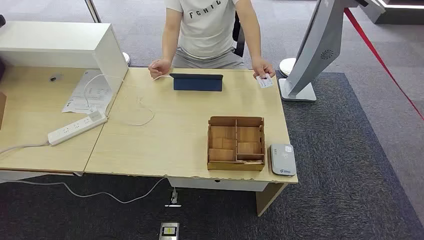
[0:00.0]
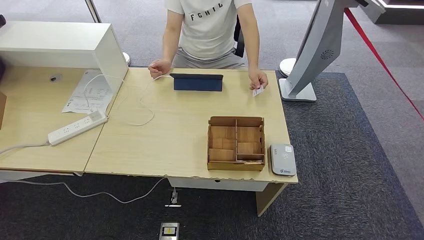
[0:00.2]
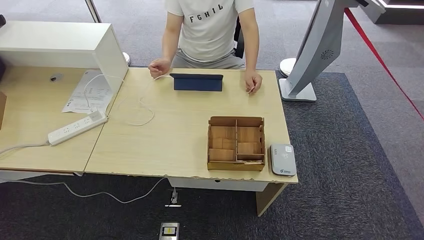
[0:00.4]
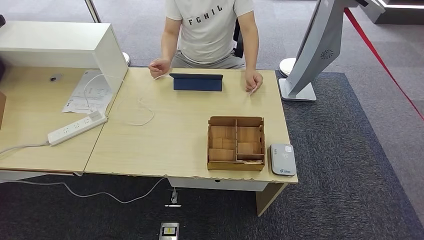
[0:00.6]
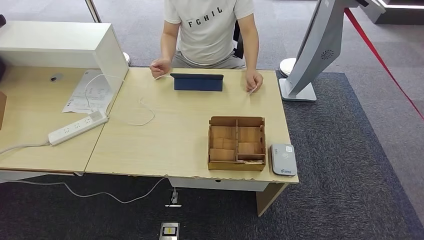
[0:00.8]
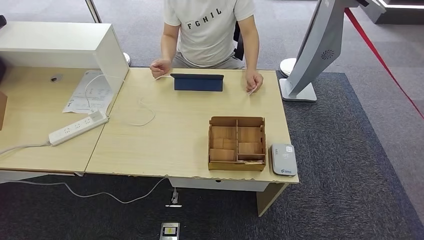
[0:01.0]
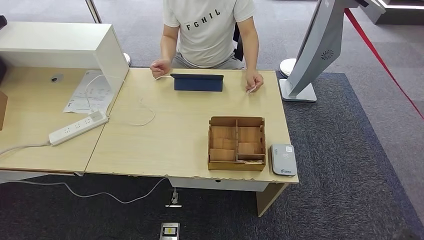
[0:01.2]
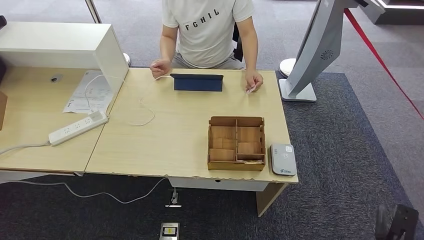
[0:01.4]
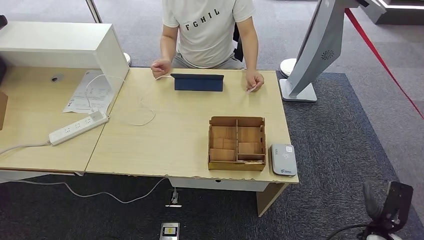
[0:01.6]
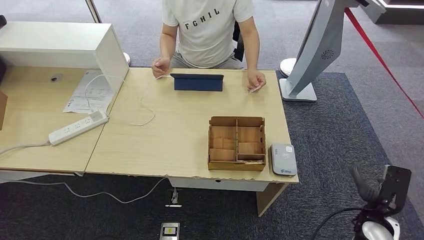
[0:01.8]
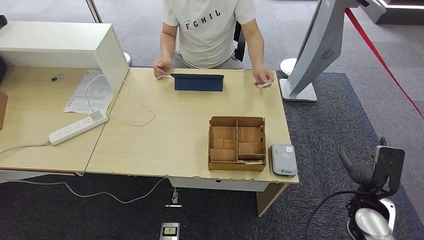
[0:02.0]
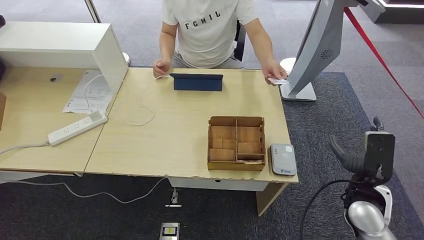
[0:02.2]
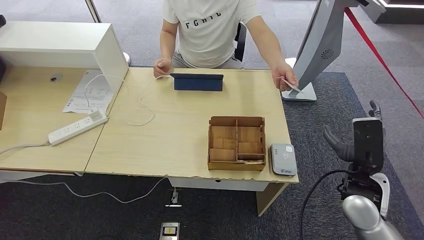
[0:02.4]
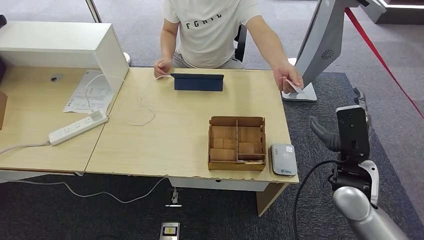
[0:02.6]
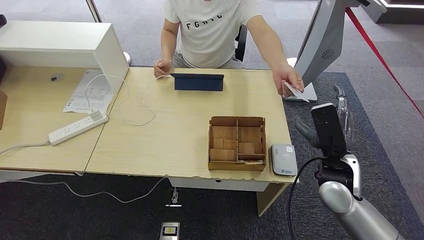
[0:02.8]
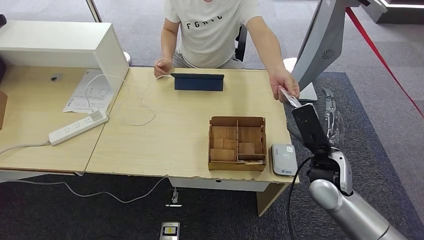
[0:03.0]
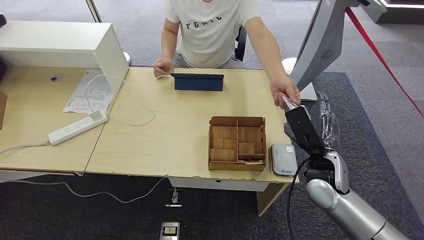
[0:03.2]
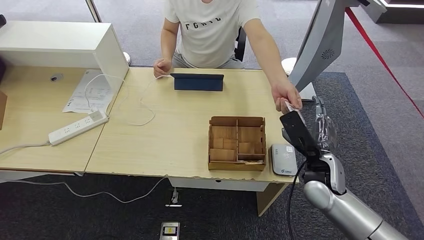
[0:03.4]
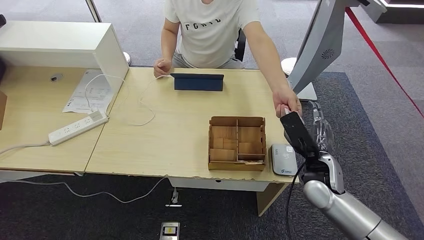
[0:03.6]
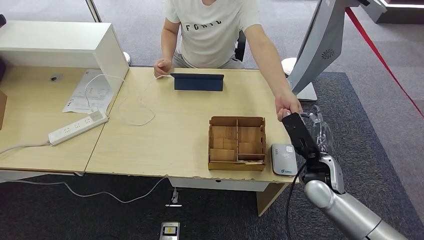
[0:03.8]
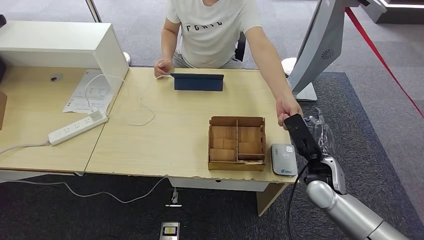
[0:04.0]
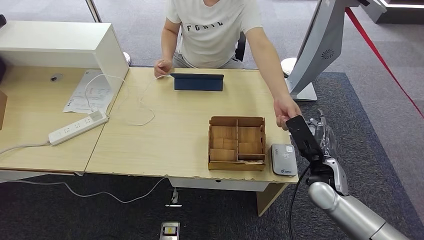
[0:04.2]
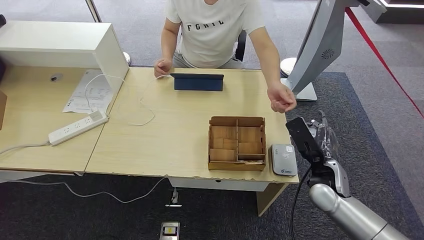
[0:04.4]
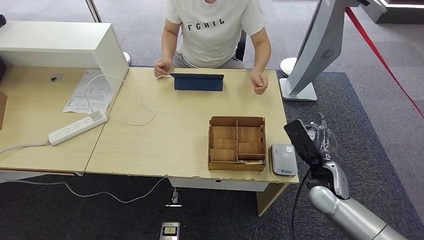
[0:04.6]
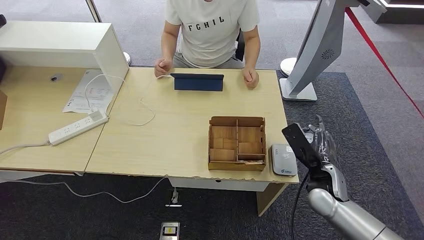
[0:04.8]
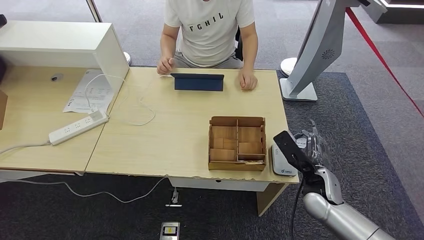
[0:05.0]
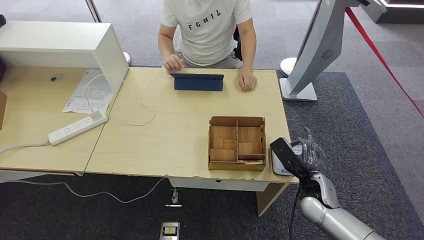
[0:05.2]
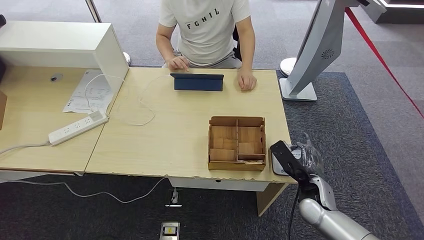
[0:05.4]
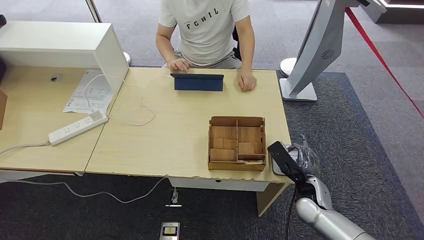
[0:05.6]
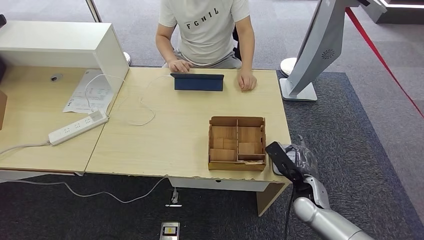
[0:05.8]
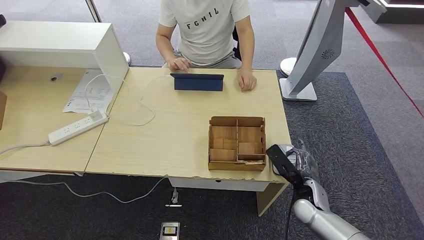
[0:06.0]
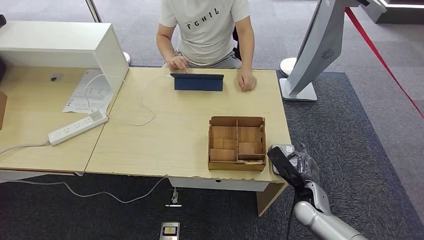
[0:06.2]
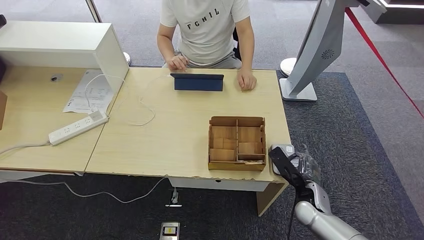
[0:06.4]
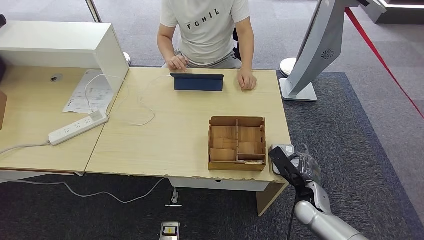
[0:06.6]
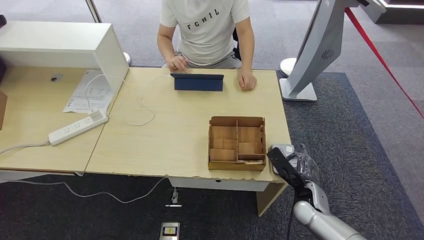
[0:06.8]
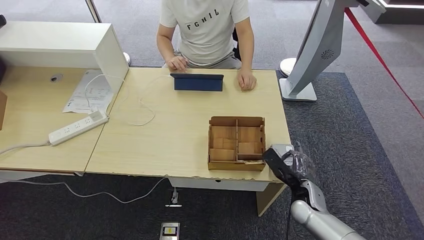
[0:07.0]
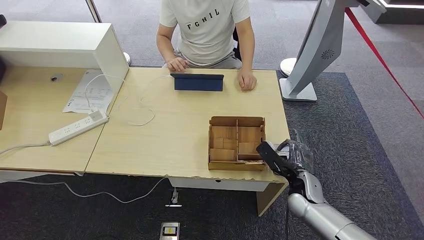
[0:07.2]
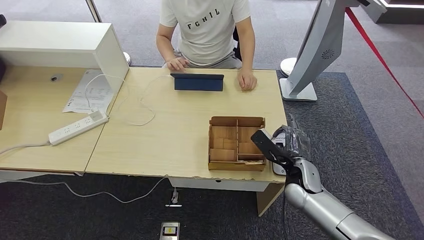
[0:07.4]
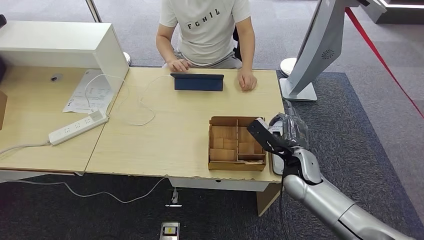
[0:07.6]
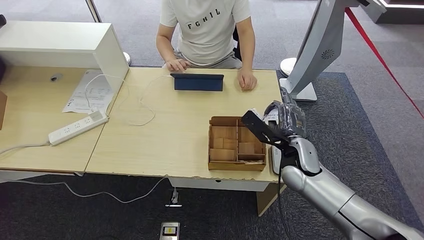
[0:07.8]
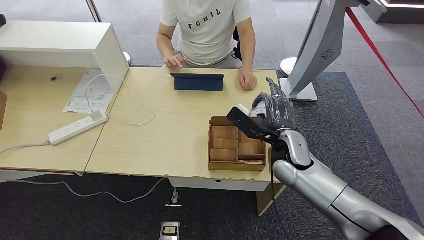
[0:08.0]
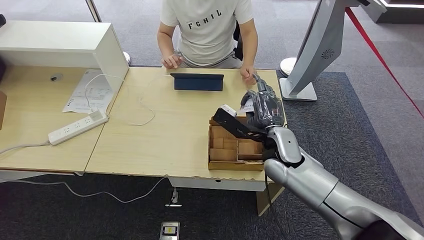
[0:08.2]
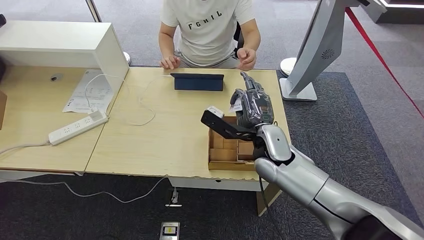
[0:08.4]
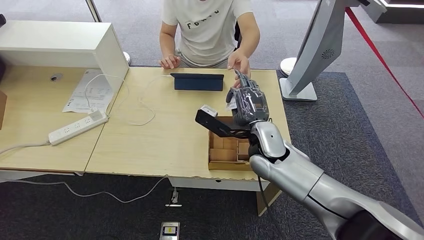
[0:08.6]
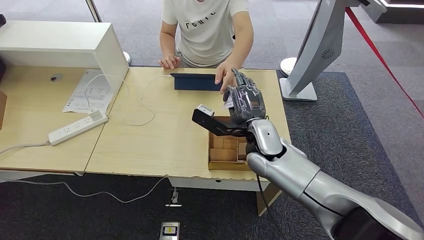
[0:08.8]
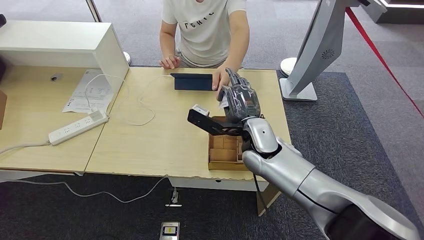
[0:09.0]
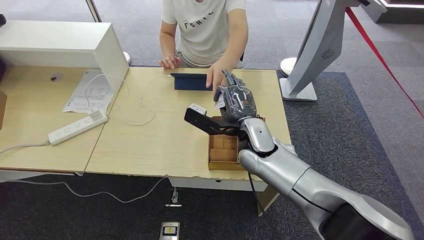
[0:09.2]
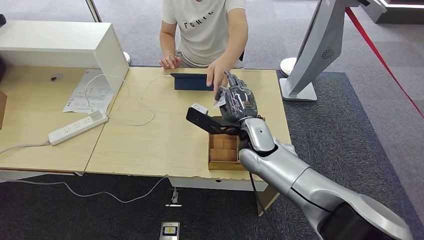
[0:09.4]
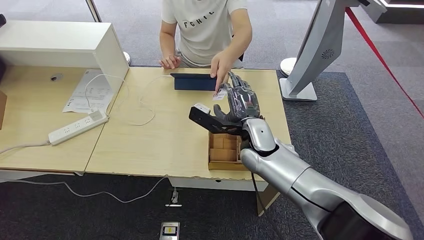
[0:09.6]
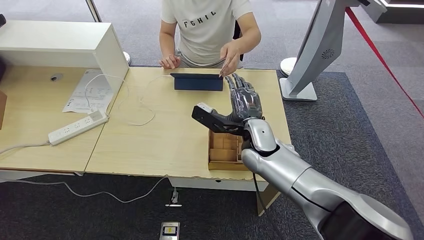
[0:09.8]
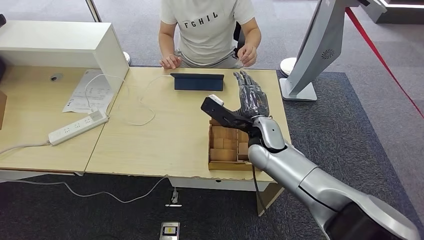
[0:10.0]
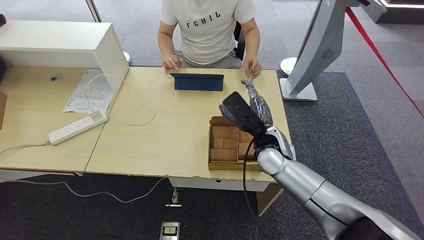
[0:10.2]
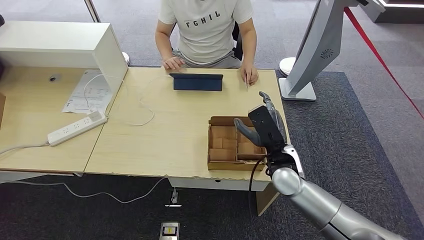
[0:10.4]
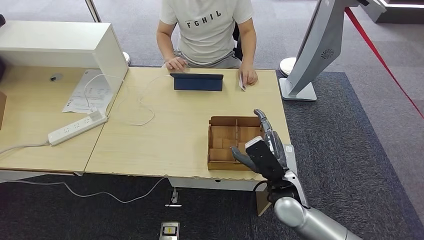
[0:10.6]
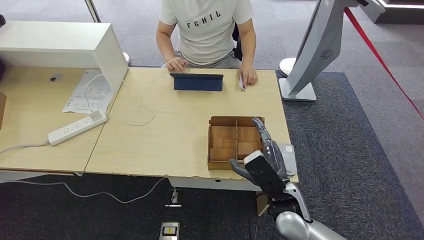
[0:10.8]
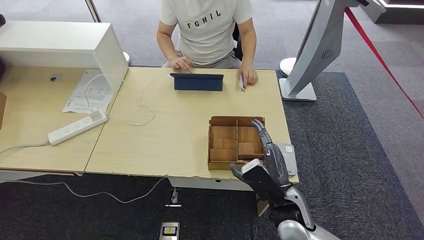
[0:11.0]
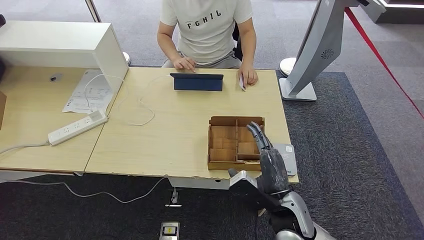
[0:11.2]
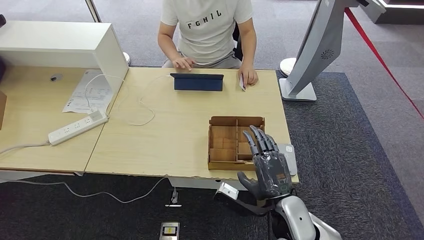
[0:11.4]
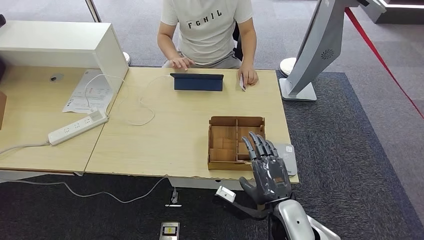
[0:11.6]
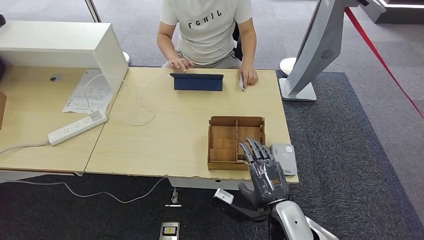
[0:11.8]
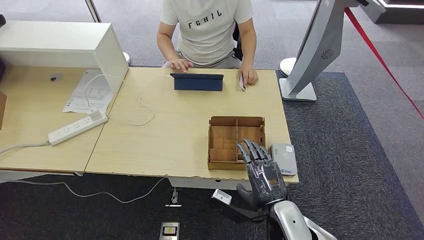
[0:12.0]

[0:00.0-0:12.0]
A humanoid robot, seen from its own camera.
Step, 0:00.0 to 0:04.2: Take the ID card from the person's hand.
Step, 0:05.4 to 0:06.8: Place the ID card on the card reader.
Step, 0:07.4 to 0:10.4: Hand the ID card to the person.
0:01.6 to 0:03.0: The right hand shifts roughly 25 cm to the left, upward and forward.
0:03.0 to 0:04.4: The right hand shifts by some 5 cm.
0:04.4 to 0:06.0: The right hand moves downward, roughly 10 cm.
0:06.0 to 0:07.6: The right hand is displaced upward and forward by some 10 cm.
0:07.6 to 0:09.0: The right hand travels to the left and upward by some 15 cm.
0:09.0 to 0:10.4: The right hand shifts about 10 cm to the right and downward.
0:10.4 to 0:12.0: The right hand moves backward, roughly 15 cm.

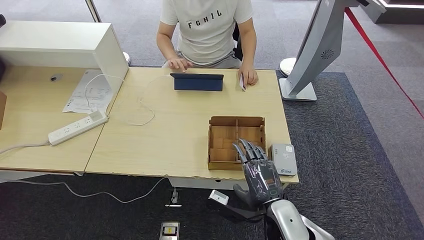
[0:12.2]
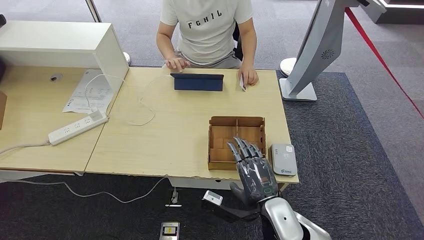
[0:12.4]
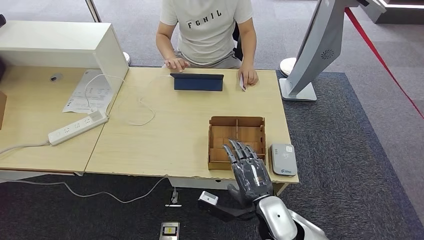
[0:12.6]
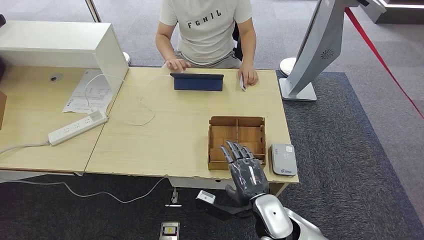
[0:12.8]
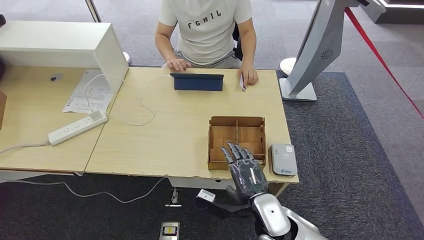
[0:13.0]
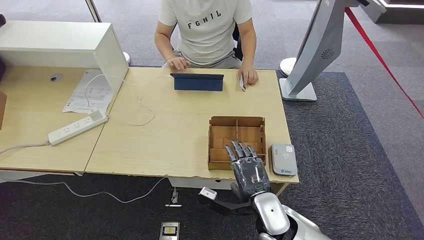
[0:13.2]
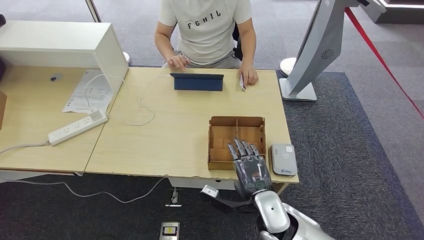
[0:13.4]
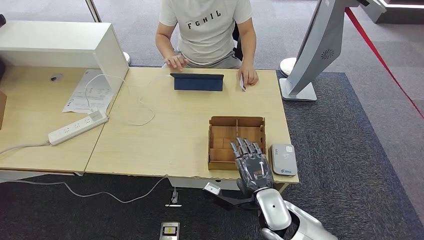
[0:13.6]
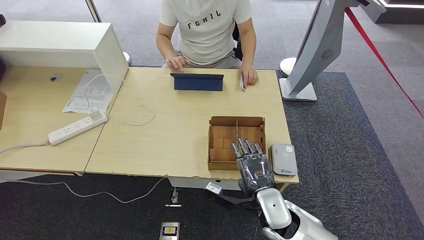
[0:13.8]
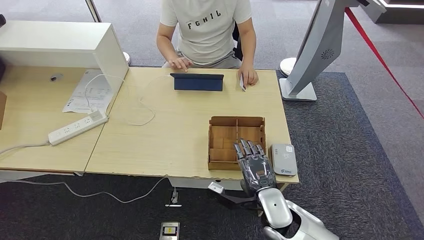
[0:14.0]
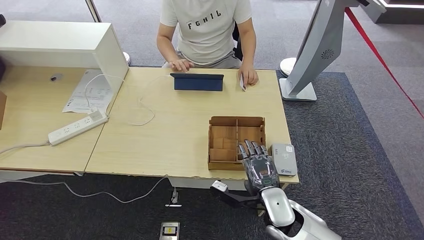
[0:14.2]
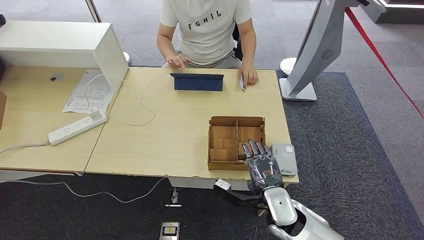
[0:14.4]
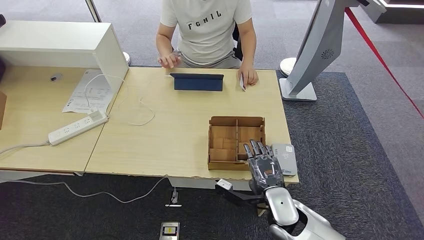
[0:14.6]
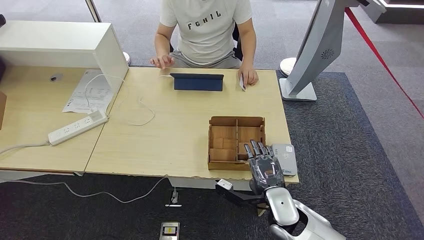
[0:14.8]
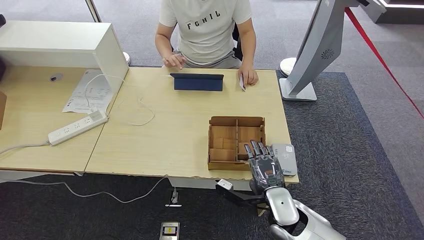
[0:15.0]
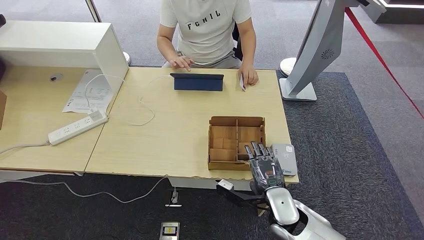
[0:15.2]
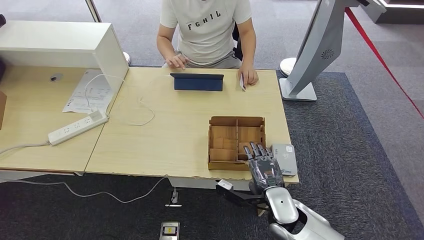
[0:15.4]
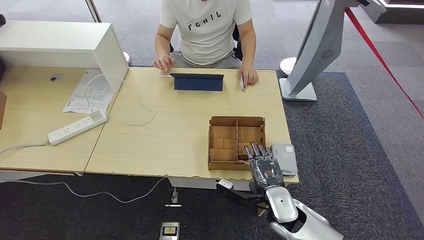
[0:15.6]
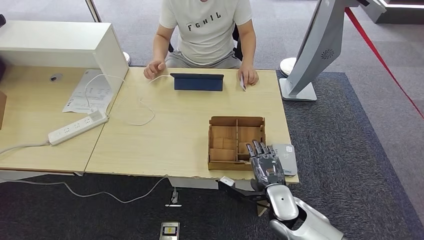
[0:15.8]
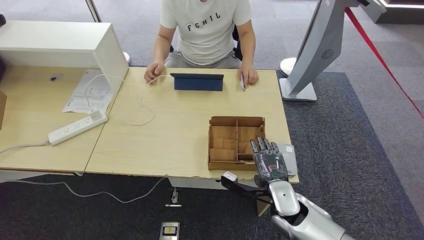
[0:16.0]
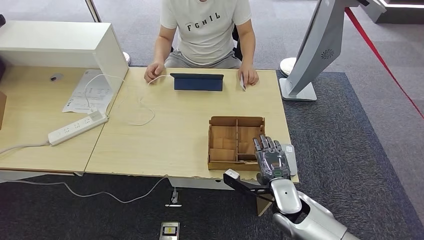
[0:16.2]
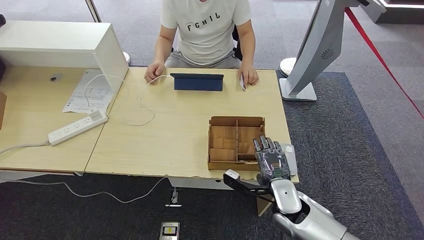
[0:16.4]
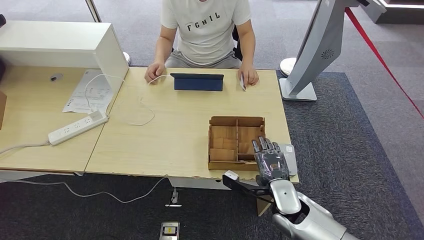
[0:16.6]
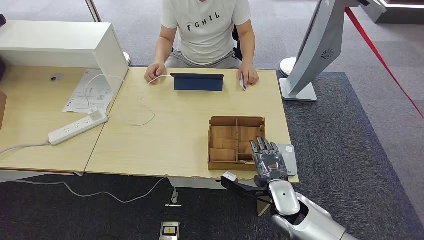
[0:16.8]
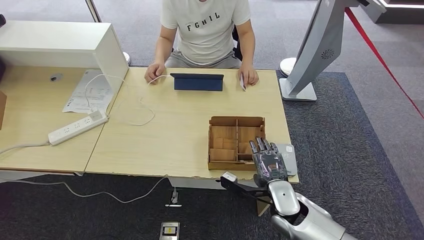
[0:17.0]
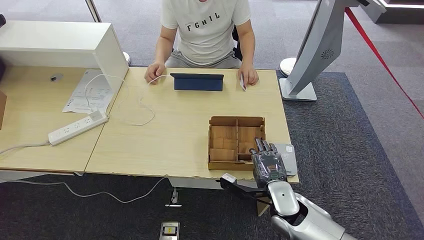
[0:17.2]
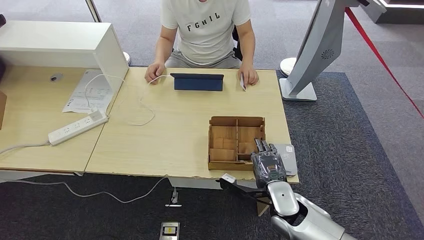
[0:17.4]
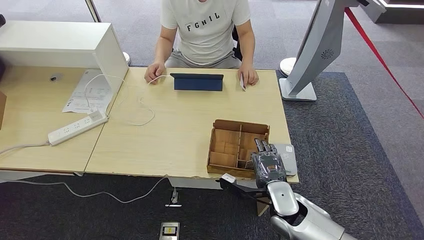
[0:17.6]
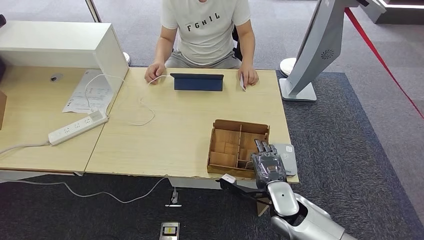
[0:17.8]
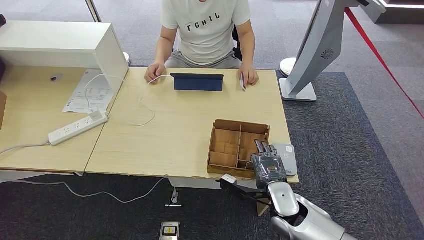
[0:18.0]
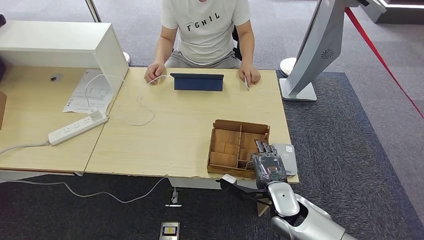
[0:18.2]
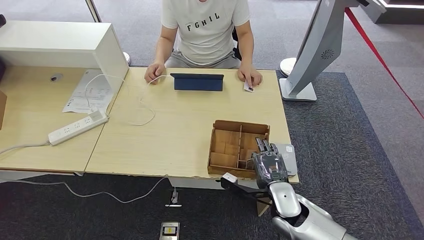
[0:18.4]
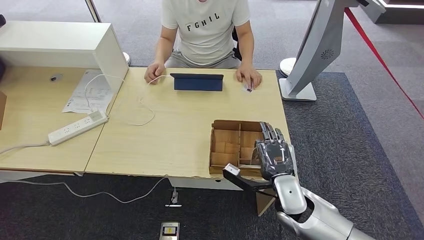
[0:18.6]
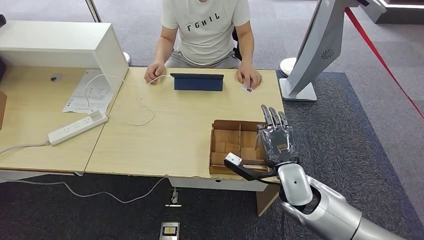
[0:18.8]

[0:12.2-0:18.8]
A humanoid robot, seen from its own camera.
0:12.2 to 0:13.8: There are only small adjustments of the hands.
0:13.8 to 0:17.2: The hands stay close to where they were, moving slightly.
0:17.2 to 0:18.8: The right hand goes about 5 cm upward.
